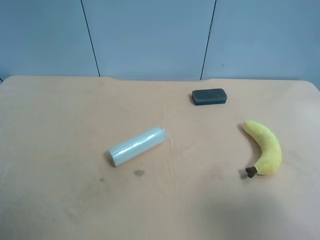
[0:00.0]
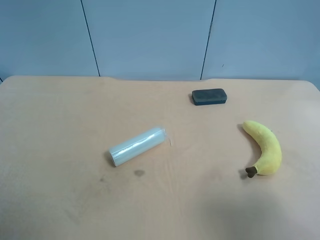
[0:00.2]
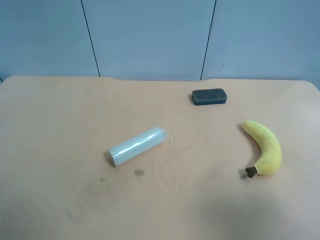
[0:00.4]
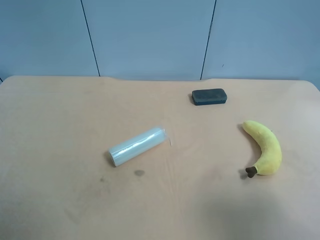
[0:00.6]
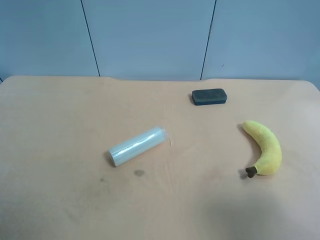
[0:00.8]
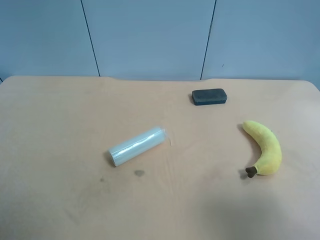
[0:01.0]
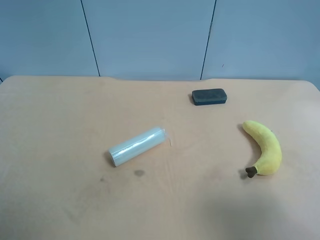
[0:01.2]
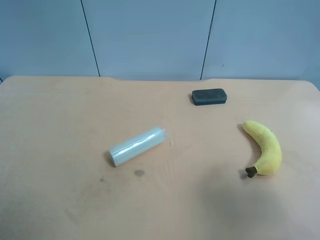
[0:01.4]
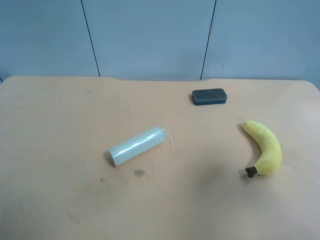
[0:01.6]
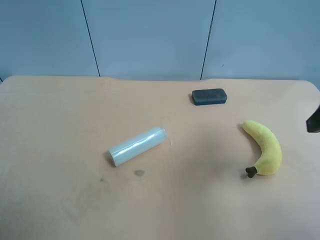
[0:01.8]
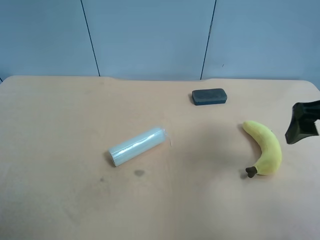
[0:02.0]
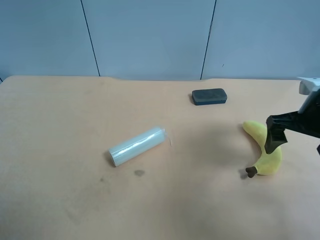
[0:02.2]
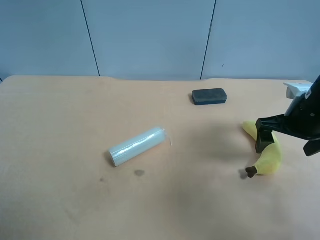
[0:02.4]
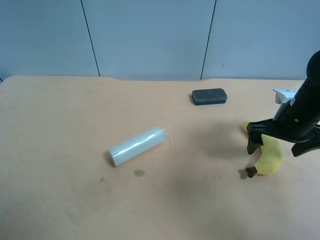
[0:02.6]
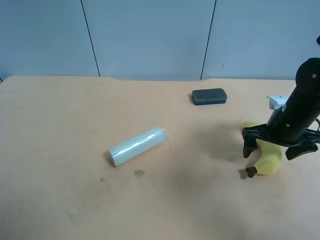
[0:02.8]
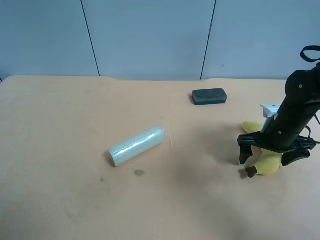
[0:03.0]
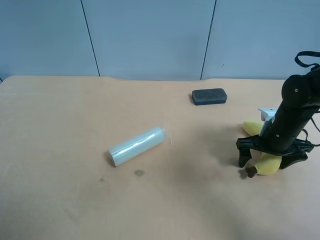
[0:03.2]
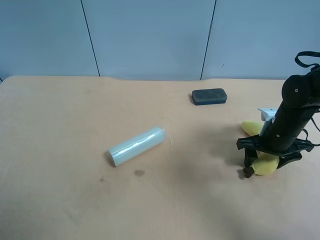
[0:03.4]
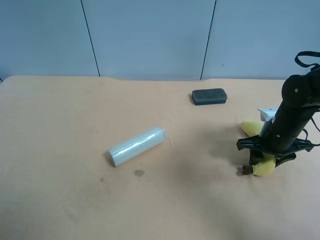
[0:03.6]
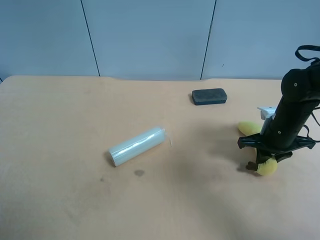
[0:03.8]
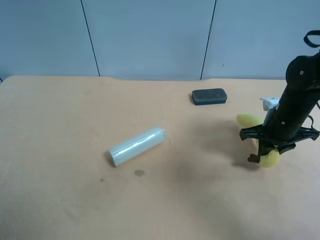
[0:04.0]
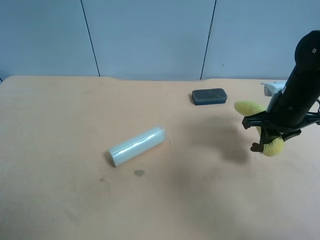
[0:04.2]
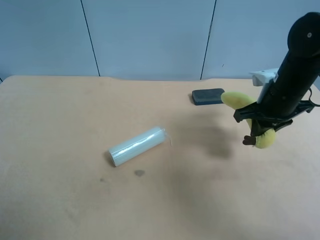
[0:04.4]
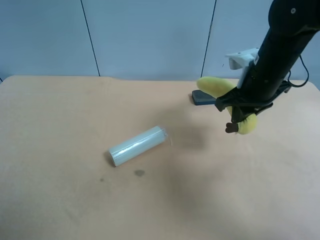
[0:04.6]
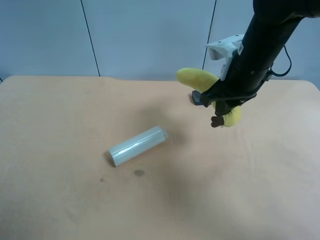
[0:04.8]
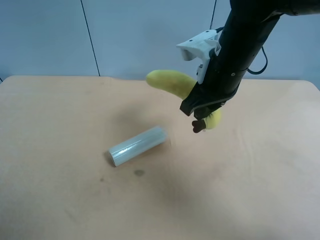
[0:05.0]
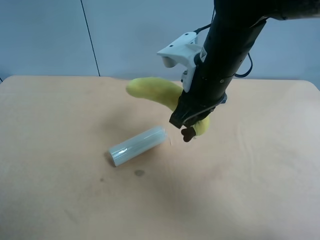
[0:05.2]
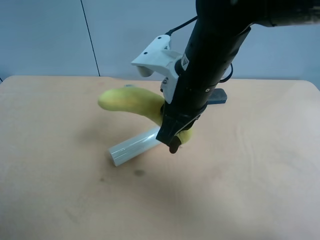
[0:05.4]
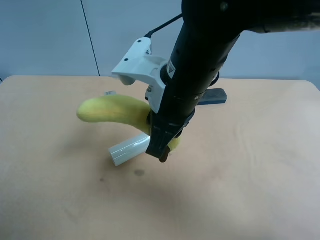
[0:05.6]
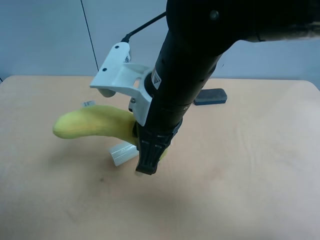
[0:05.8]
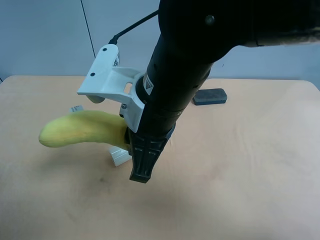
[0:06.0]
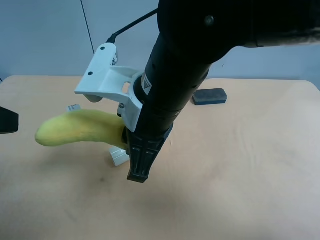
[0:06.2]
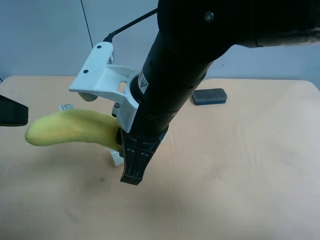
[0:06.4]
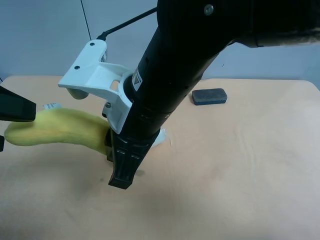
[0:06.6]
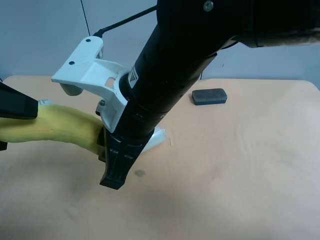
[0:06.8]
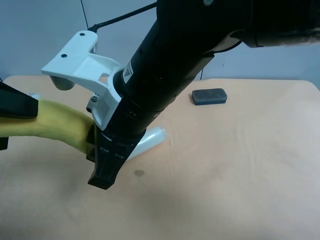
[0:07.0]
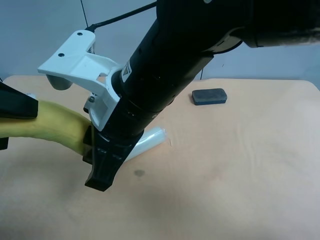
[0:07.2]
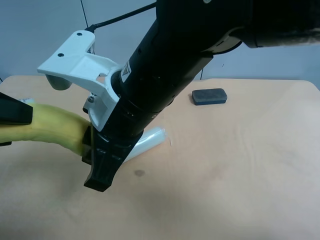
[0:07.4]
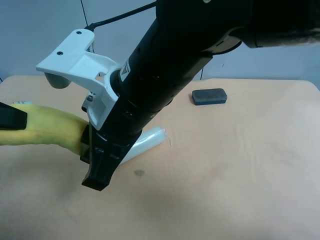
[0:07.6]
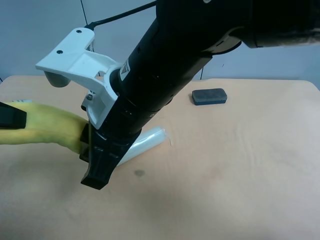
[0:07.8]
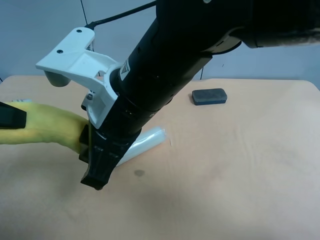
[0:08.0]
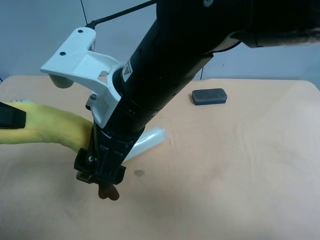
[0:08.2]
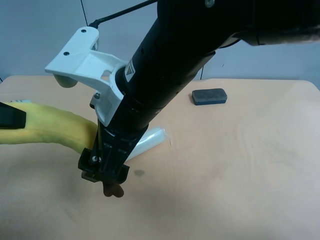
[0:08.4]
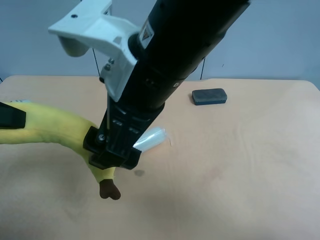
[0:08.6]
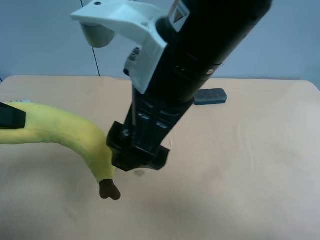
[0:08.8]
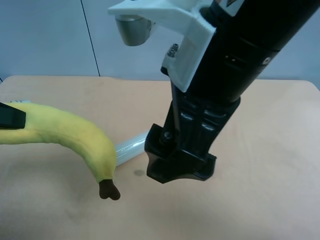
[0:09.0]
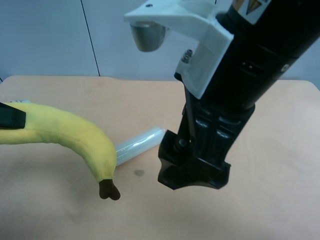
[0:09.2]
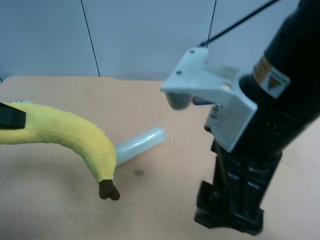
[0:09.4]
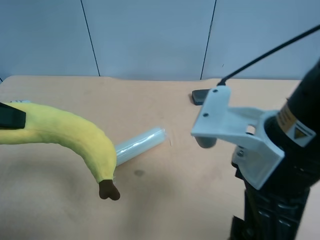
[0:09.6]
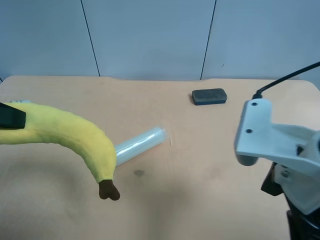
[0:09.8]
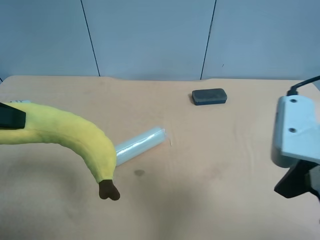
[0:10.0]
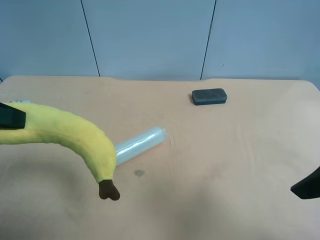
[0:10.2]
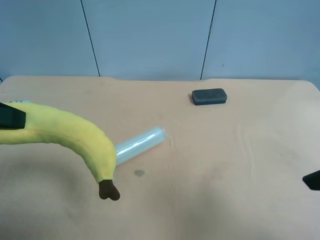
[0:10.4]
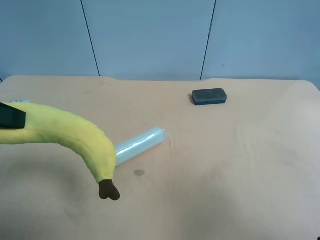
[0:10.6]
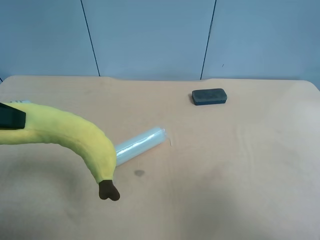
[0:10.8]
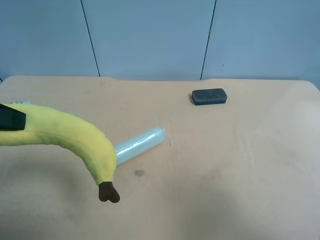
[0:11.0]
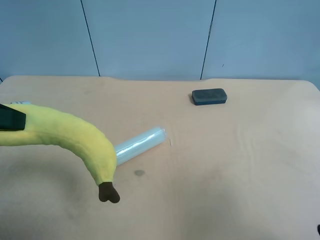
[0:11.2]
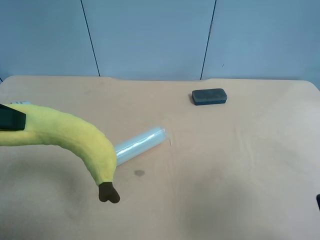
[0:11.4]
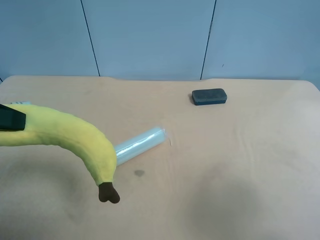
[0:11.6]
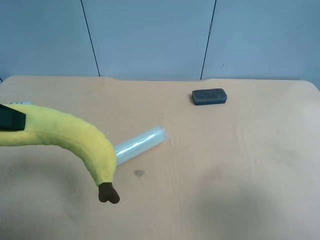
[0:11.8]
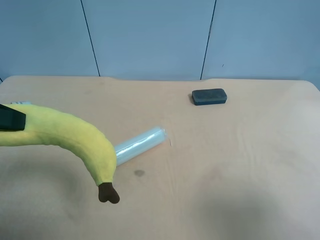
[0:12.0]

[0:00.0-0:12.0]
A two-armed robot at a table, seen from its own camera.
Task of the whole recording: use the right gripper to pick up the item and transfer it from the right gripper to the left gripper.
0:00.0 to 0:01.6: The right gripper shifts some 10 cm forward.
0:01.6 to 0:03.0: The right gripper goes roughly 30 cm downward and forward.
0:03.0 to 0:04.4: The right gripper heads upward, covering approximately 10 cm, and closes.
0:04.4 to 0:06.0: The left gripper shifts some 10 cm forward. The right gripper shifts about 25 cm to the left and backward.
0:06.0 to 0:07.6: The left gripper closes its fingers.
0:07.6 to 0:09.0: The right gripper shifts about 10 cm to the right and upward, and opens up.
0:09.0 to 0:10.4: The right gripper heads to the right and backward, covering some 20 cm.
0:10.4 to 0:12.0: The right gripper shifts by roughly 5 cm.

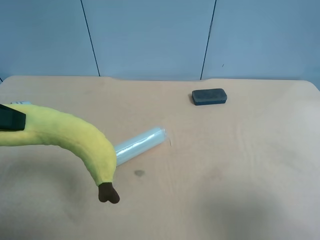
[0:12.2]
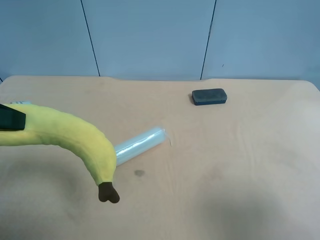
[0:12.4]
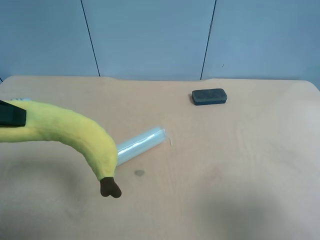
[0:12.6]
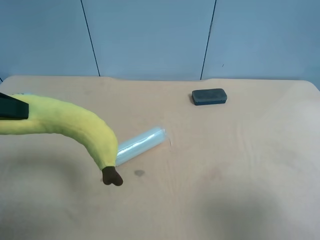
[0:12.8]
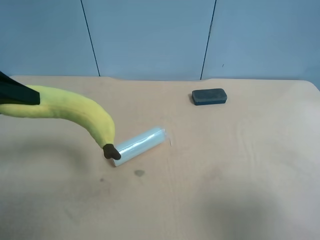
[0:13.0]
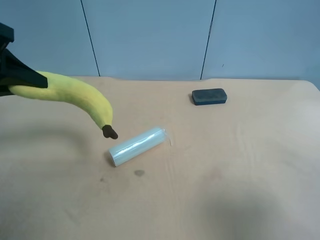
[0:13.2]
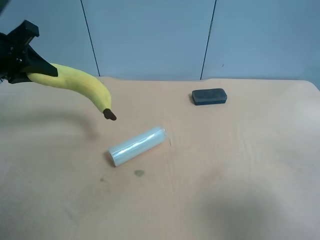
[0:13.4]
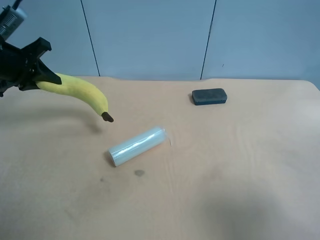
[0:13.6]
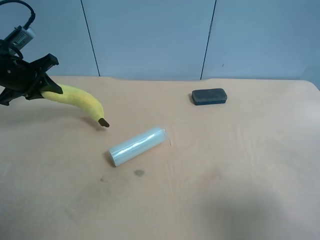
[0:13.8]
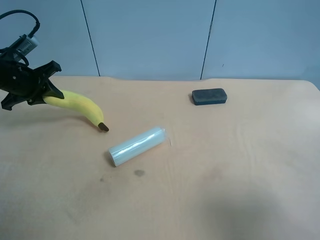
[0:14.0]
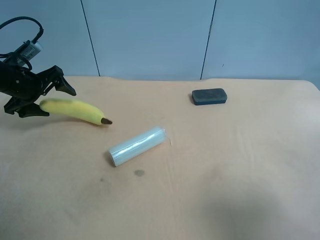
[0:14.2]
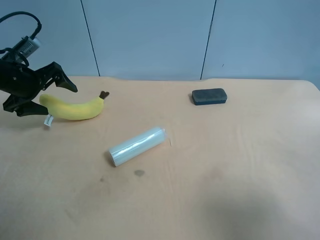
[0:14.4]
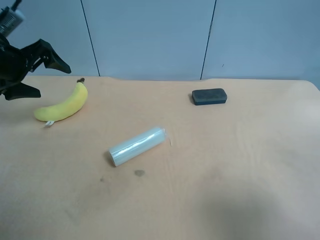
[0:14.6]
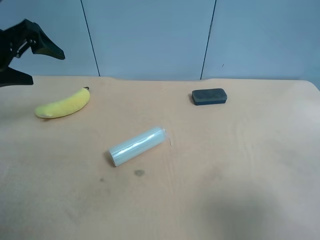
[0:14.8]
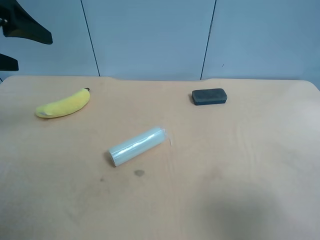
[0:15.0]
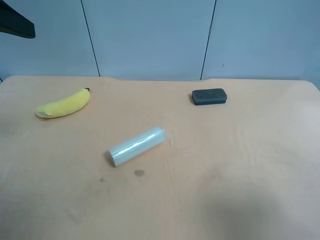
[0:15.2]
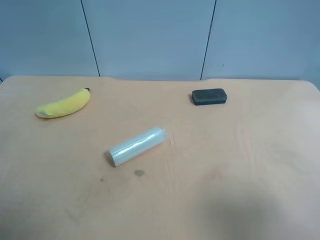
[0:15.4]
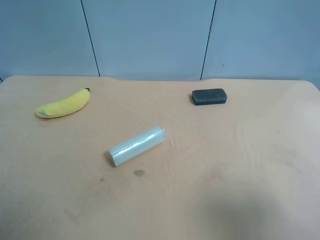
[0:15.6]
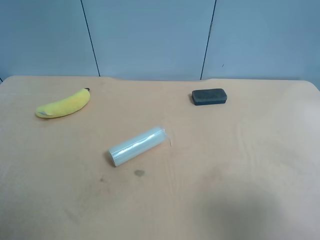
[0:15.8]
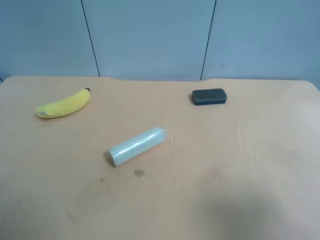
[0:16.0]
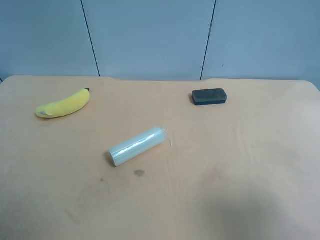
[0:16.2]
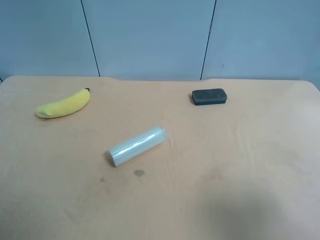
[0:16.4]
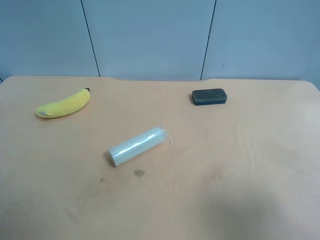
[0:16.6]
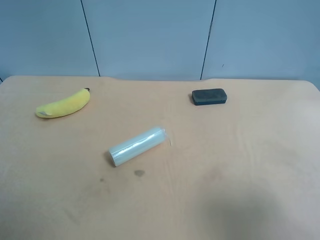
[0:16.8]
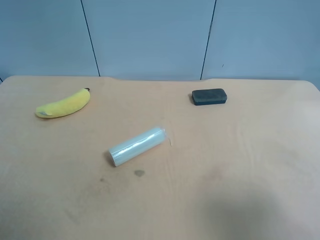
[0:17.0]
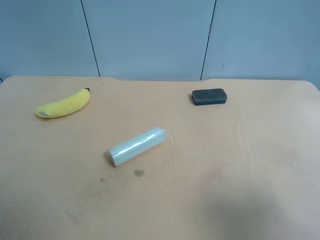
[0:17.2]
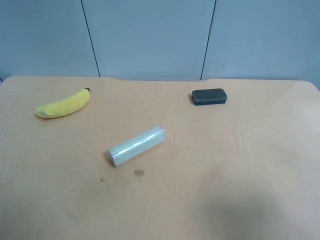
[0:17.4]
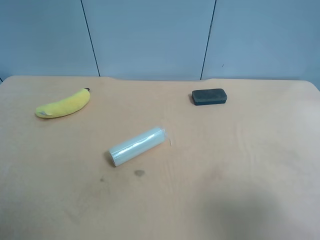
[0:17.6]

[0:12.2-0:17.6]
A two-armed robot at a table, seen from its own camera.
Task of the whole recording: use the right gripper to pick up the item and transfer it from the right gripper to the left gripper.
0:12.2 to 0:13.6: The left gripper goes approximately 20 cm forward.
0:13.6 to 0:15.0: The left gripper goes about 15 cm upward and backward, and opens its fingers.
0:15.0 to 0:16.2: The left gripper travels backward by approximately 20 cm.

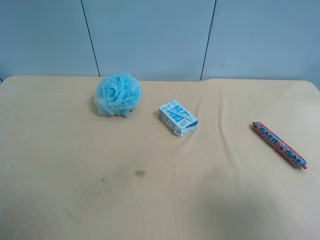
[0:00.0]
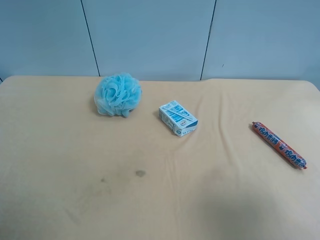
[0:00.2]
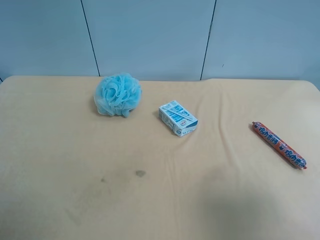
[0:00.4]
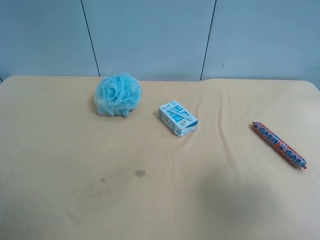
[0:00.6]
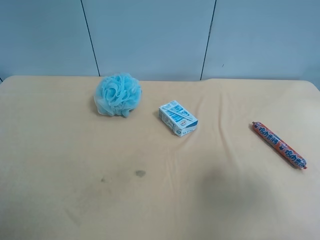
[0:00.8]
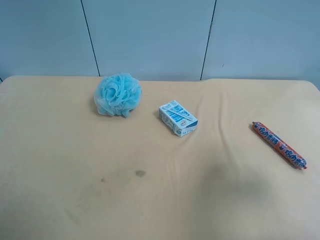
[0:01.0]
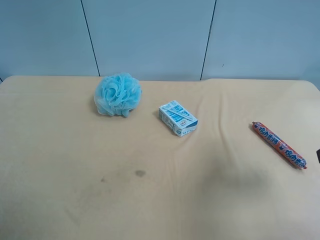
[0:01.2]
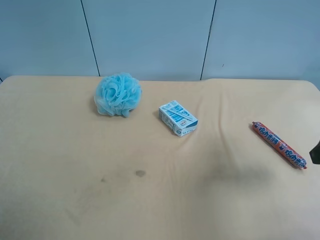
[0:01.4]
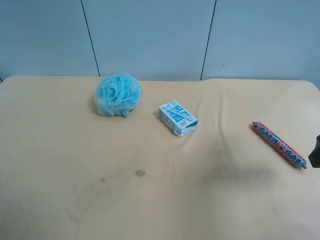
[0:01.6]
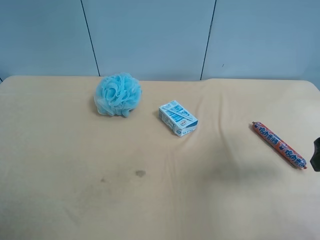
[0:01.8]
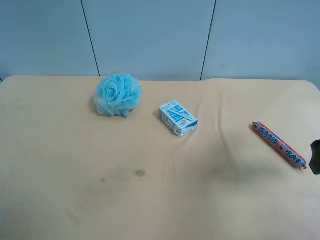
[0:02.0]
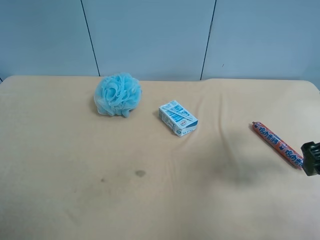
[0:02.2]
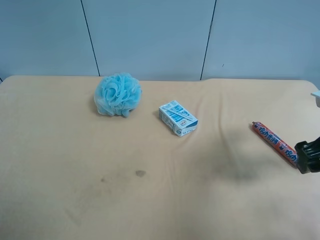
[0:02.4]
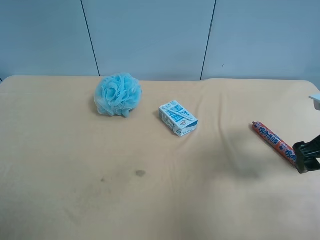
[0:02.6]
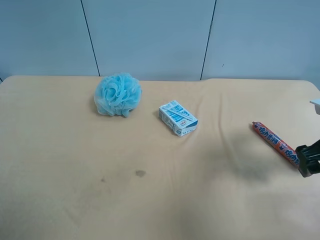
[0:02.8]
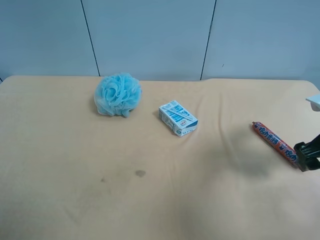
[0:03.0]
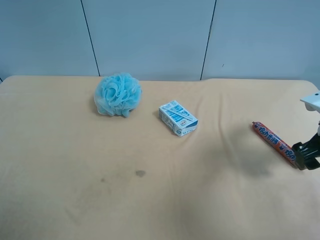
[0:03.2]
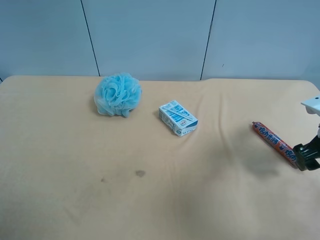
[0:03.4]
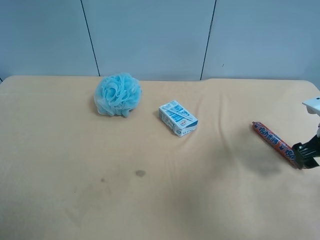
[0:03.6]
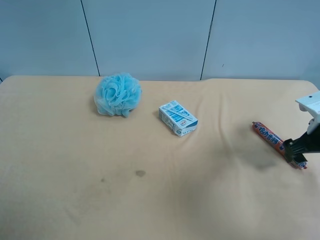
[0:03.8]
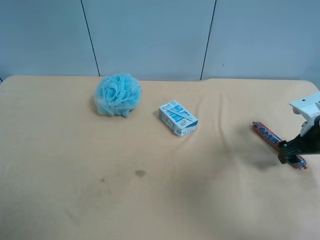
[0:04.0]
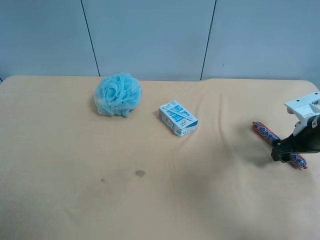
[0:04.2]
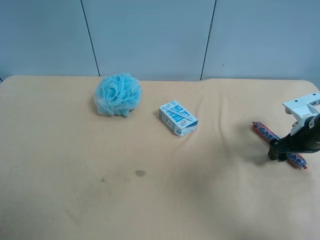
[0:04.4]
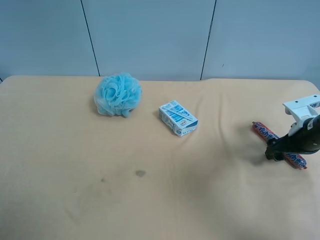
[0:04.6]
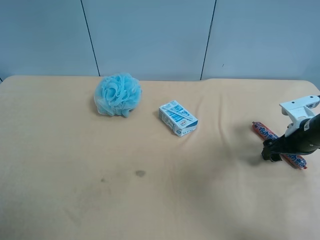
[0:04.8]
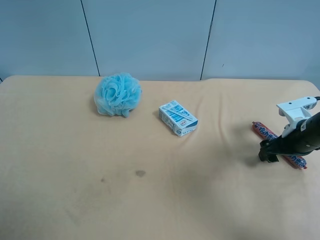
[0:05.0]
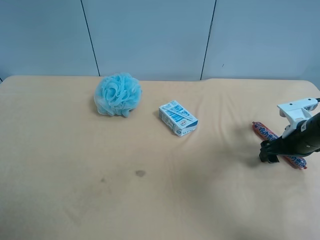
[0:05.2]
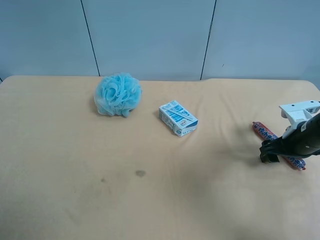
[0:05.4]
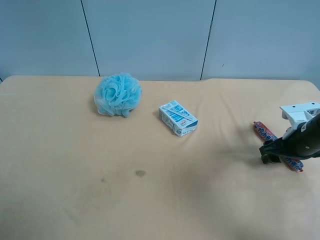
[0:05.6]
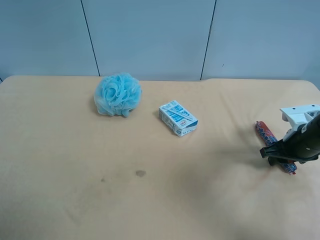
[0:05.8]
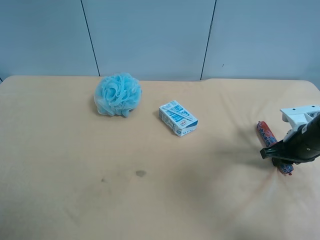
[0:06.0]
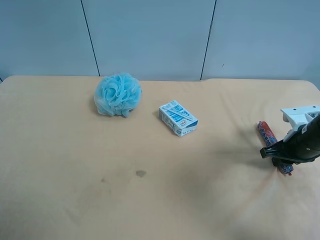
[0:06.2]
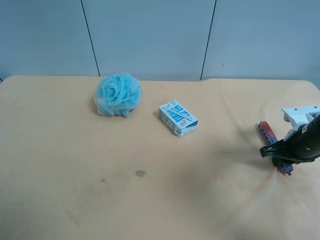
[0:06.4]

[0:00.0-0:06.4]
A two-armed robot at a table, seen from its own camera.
Task of the whole recording: use the right gripper to pick up the item and transfer it from the right gripper to the left gripper.
0:00.0 to 0:01.6: The right gripper moves forward, about 15 cm.
0:01.6 to 0:03.2: The right gripper goes about 10 cm downward and forward.
0:03.2 to 0:04.8: The right gripper travels downward by roughly 5 cm.
0:04.8 to 0:06.4: The right gripper closes its fingers.
